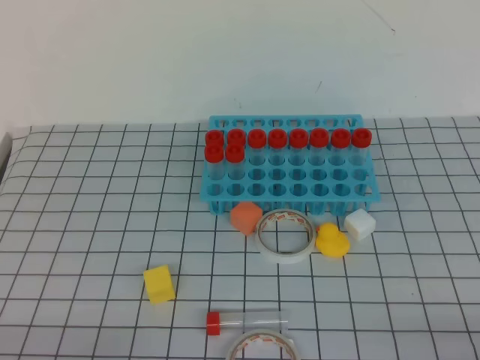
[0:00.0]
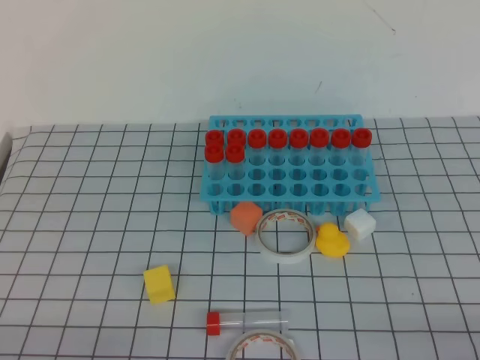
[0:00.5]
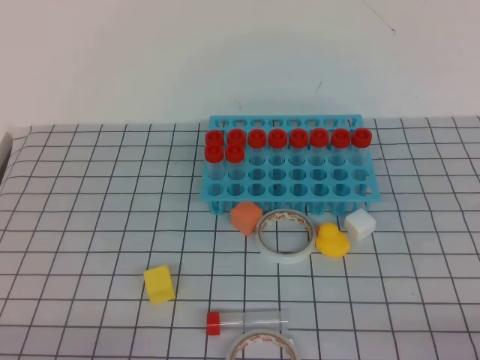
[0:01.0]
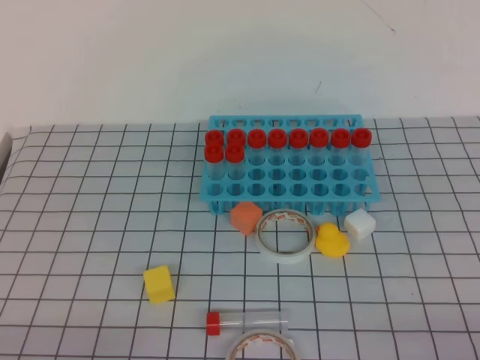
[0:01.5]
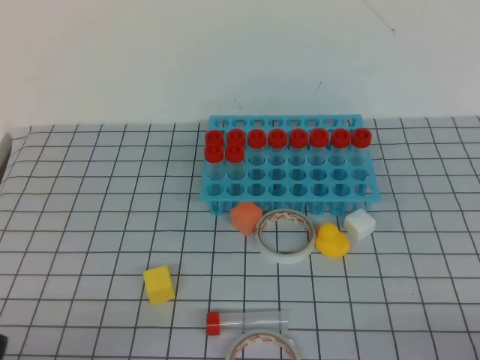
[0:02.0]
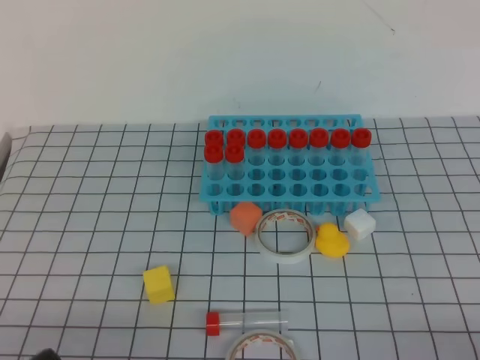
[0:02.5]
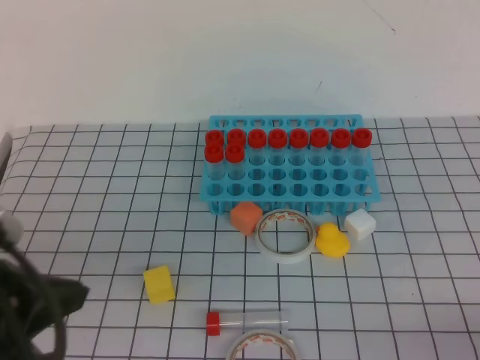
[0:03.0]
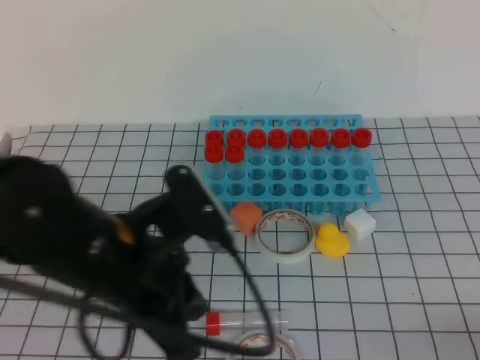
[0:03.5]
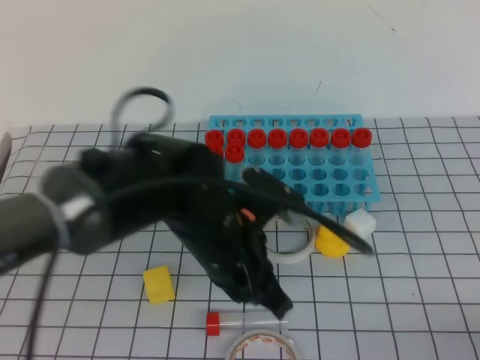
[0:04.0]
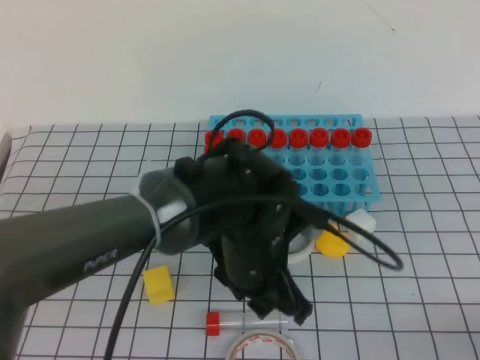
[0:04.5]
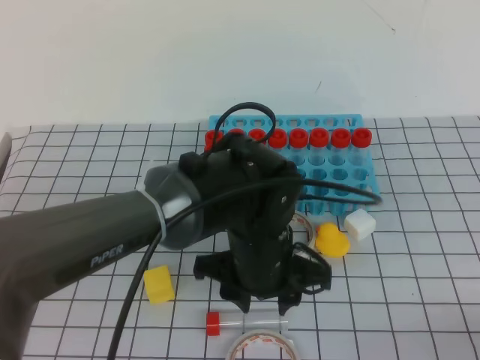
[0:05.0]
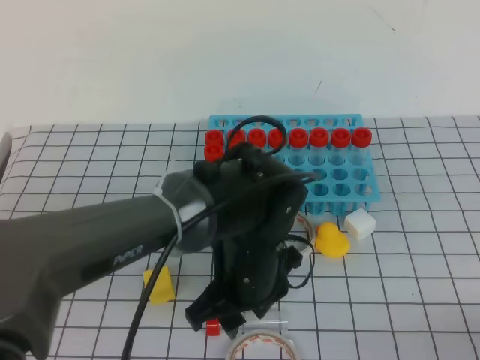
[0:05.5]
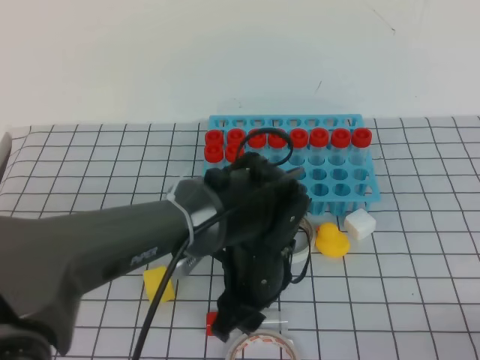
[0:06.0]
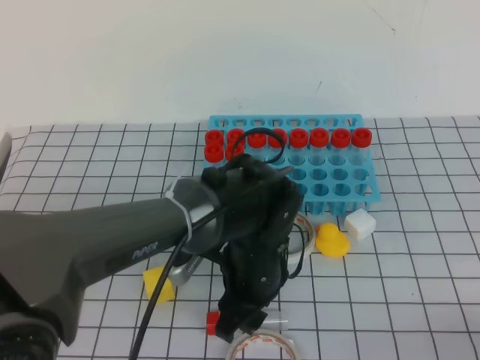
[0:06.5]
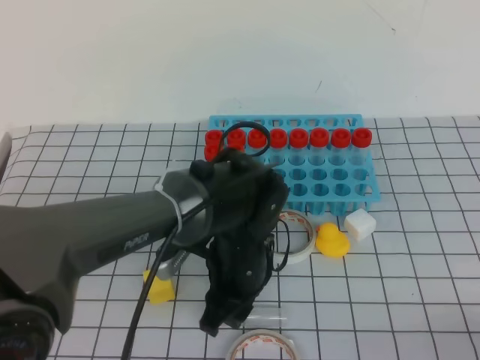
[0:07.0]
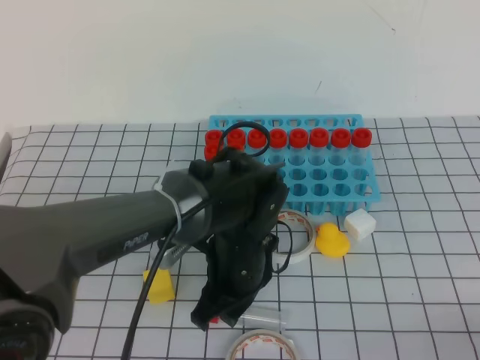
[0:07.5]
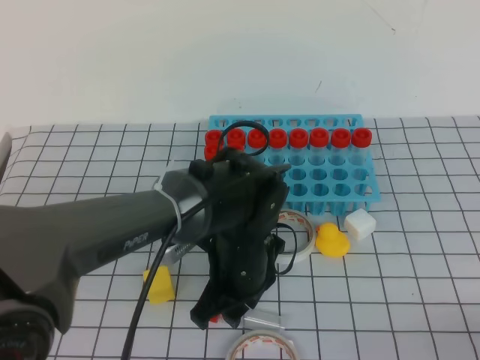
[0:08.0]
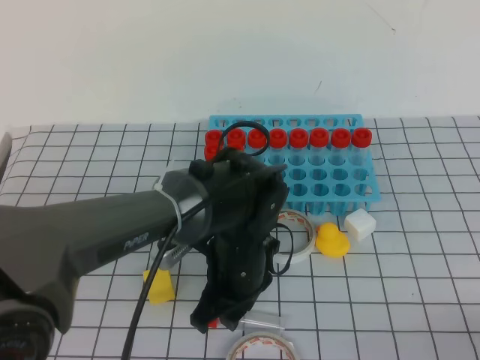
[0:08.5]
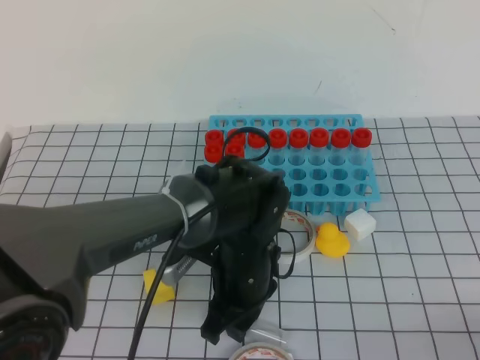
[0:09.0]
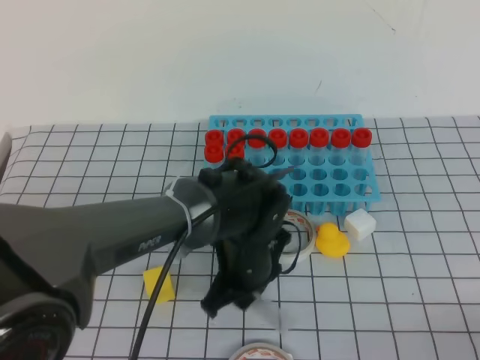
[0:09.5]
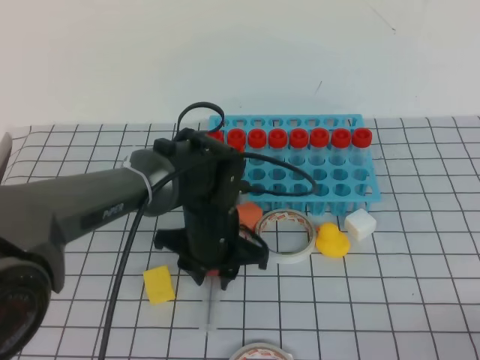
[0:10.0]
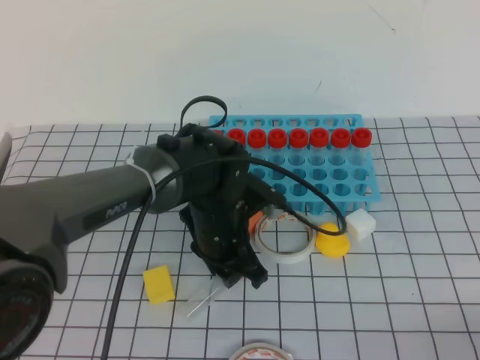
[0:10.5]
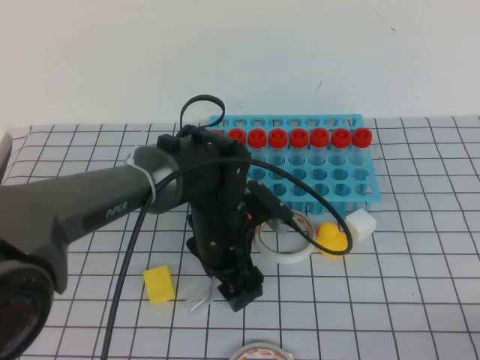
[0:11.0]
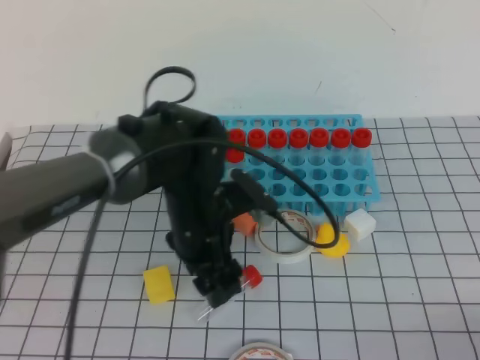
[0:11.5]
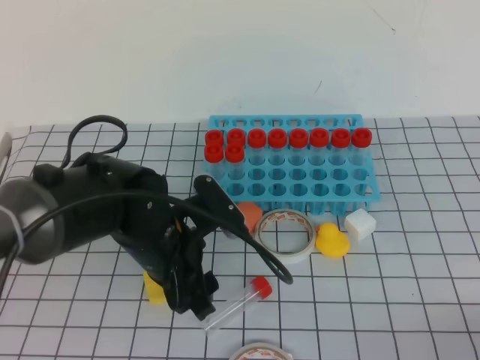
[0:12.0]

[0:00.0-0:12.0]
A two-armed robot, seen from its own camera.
0:02.0 to 0:04.0: The left gripper shifts roughly 30 cm to the right and forward.
0:04.0 to 0:06.0: The left gripper is displaced downward by roughly 5 cm, and opens.
0:06.0 to 0:08.0: There are only small adjustments of the grippers.
0:08.0 to 0:10.0: The left gripper shifts by about 5 cm.
0:10.0 to 0:12.0: The left gripper heads to the left and backward, covering approximately 10 cm, and opens its fingers.

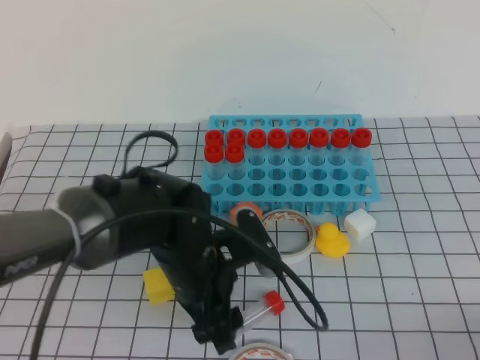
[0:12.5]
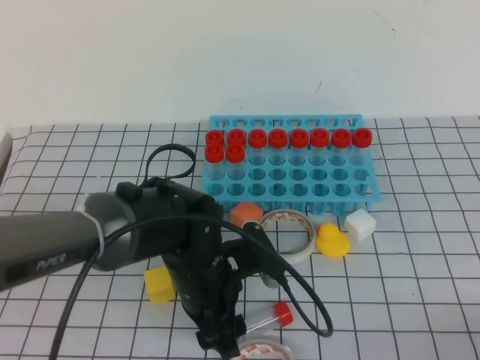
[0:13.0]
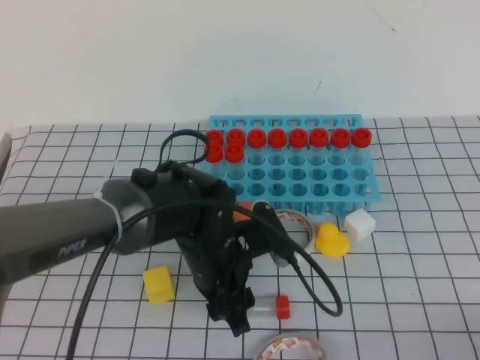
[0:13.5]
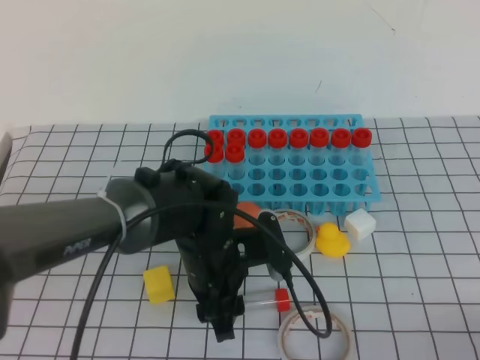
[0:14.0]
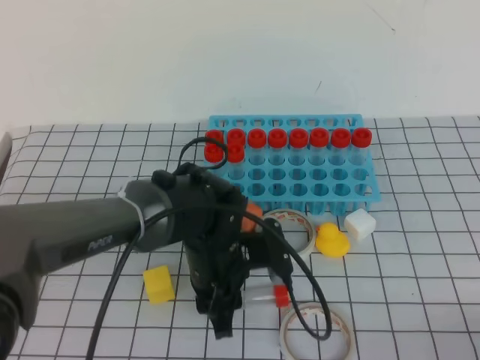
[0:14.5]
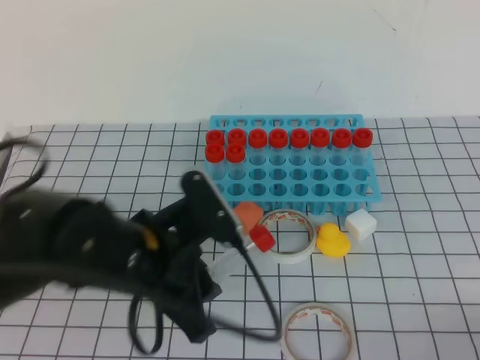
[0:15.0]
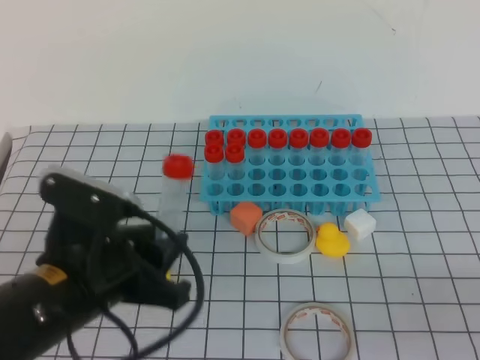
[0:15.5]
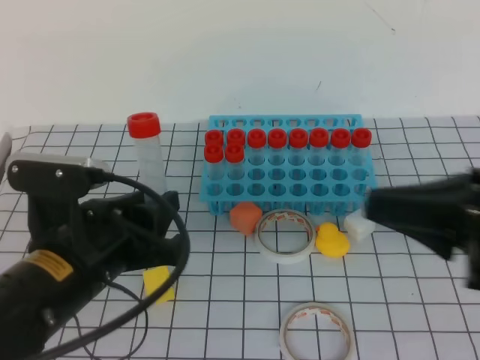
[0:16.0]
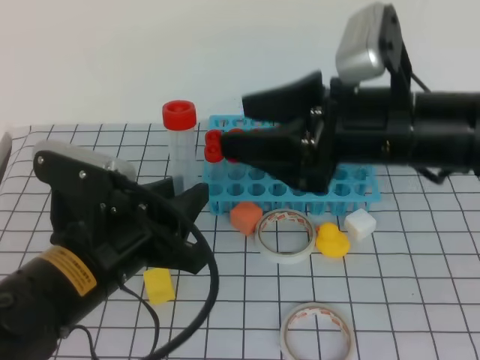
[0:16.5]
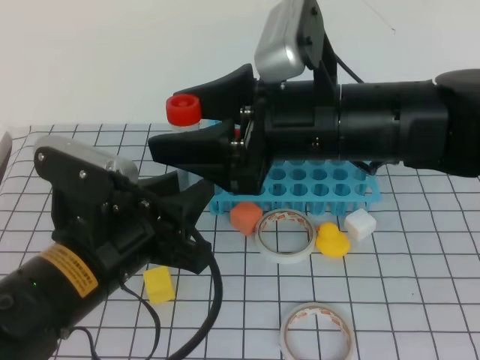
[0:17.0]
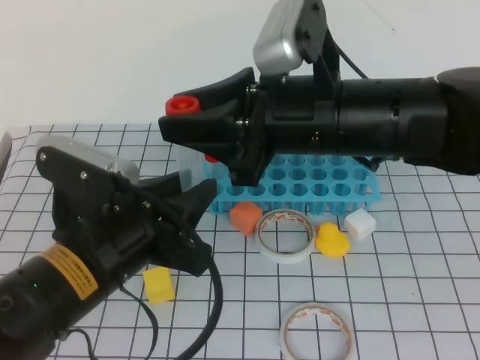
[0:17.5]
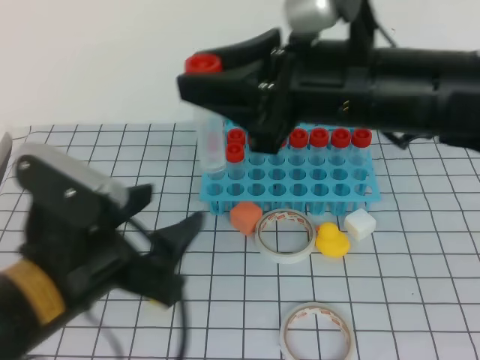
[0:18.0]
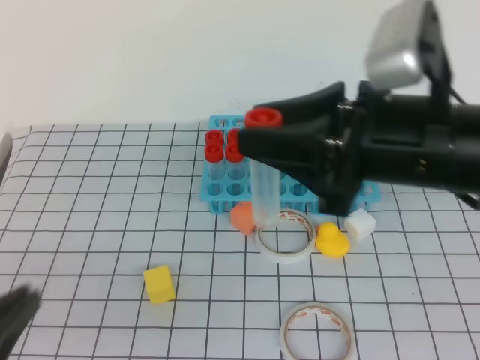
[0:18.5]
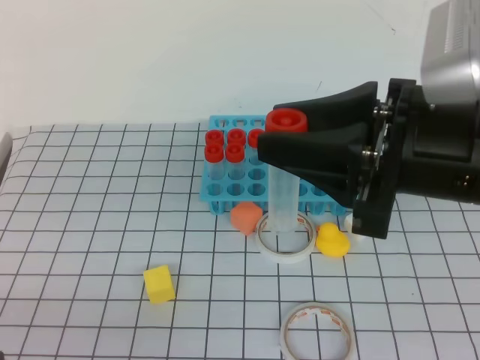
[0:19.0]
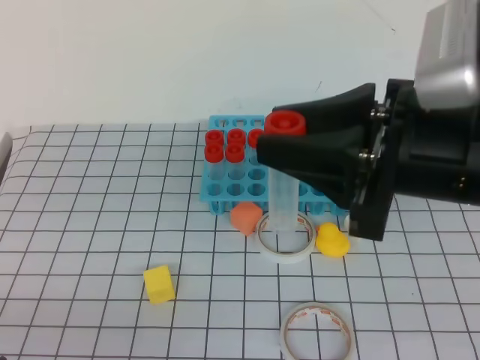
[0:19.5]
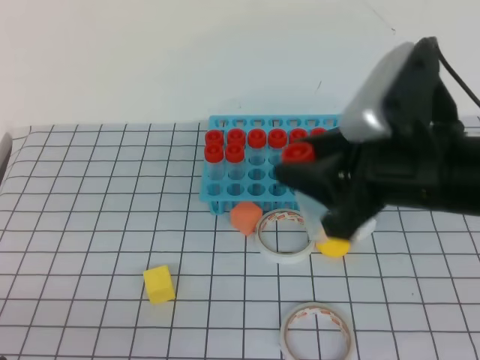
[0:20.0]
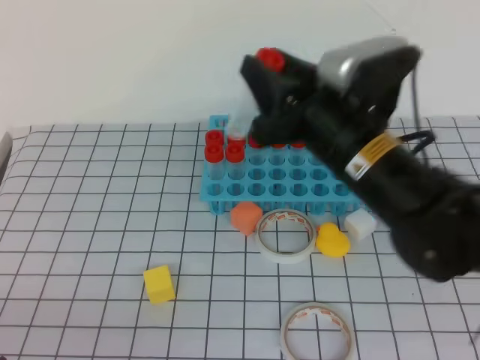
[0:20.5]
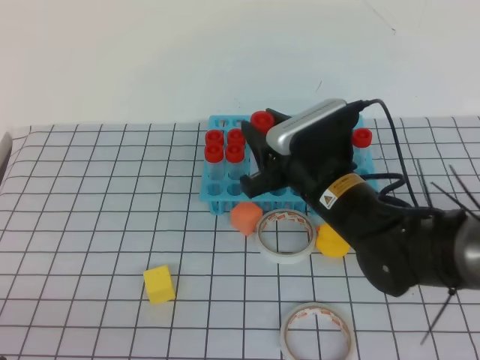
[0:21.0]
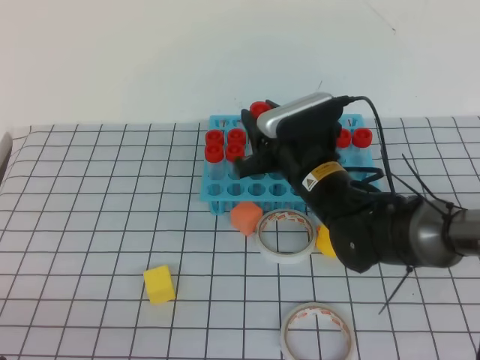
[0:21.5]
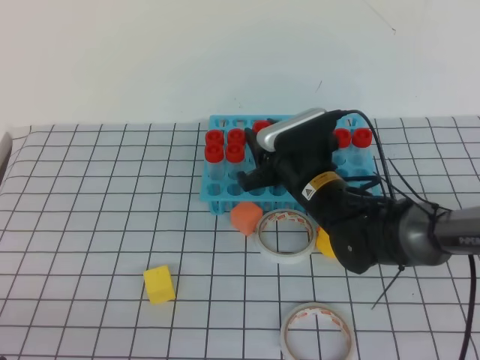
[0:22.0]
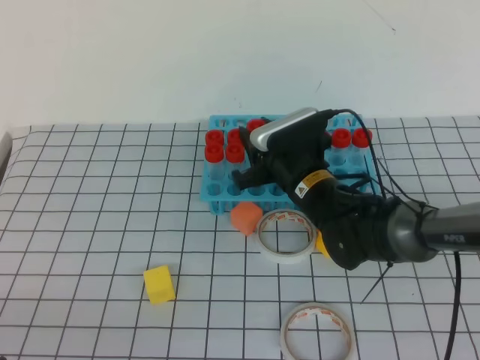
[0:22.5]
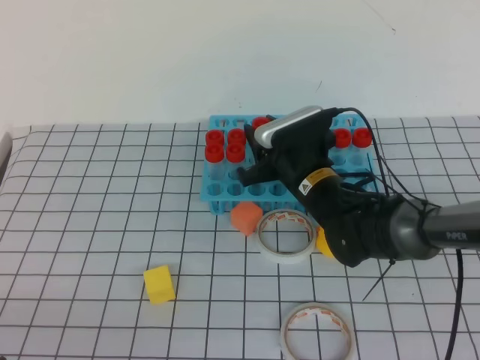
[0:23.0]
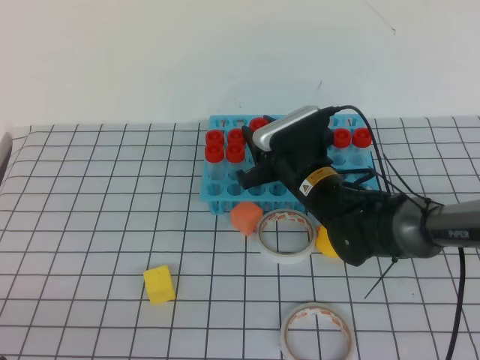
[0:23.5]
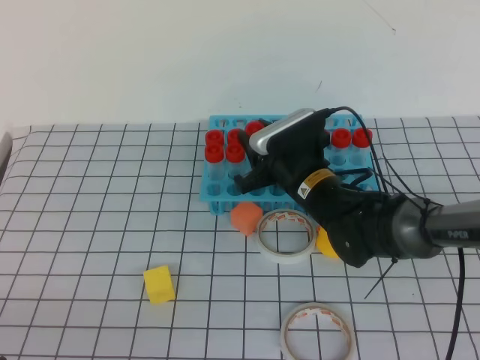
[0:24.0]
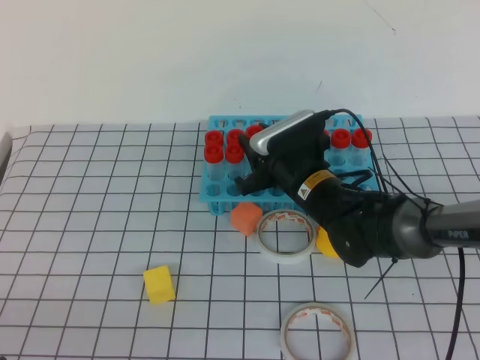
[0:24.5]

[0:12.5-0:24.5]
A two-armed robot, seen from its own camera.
0:12.5 to 0:14.5: The left gripper closes.
0:14.5 to 0:16.5: The right gripper heads forward, to the left and upward, covering some 30 cm, and opens. Meanwhile the left gripper shifts roughly 20 cm upward, backward and to the left.
0:16.5 to 0:18.5: The right gripper closes its fingers; the left gripper shifts roughly 15 cm backward and to the left, and closes.
0:18.5 to 0:20.5: The right gripper shifts roughly 10 cm downward and forward, while the left gripper shifts by about 5 cm.
0:20.5 to 0:22.5: The right gripper goes some 15 cm downward and forward.
0:22.5 to 0:24.5: The grippers move only a little.

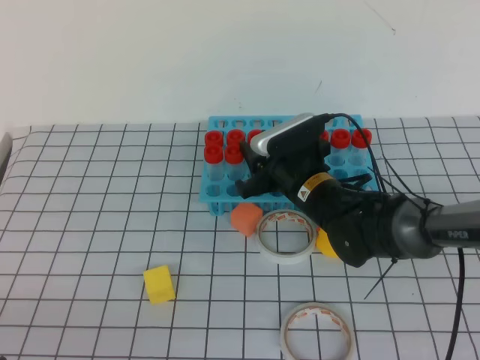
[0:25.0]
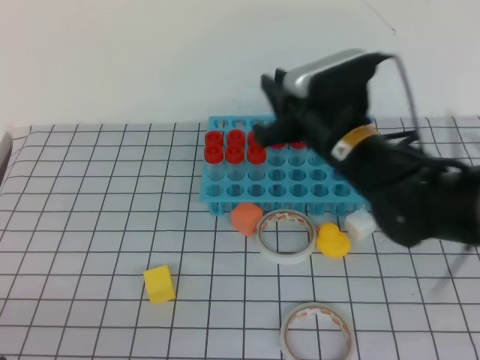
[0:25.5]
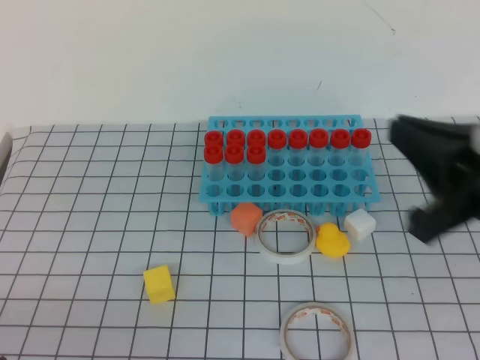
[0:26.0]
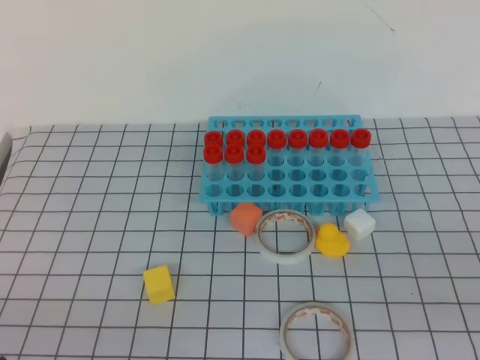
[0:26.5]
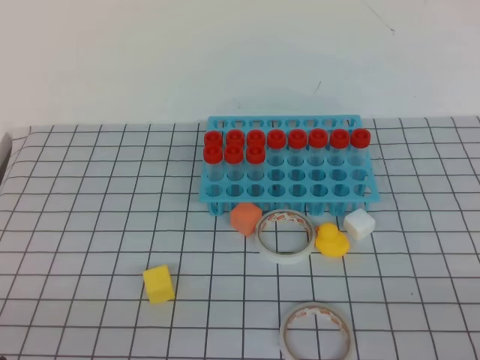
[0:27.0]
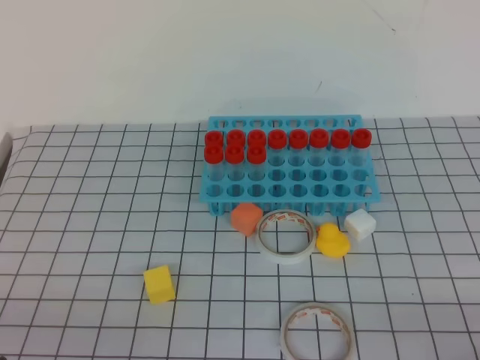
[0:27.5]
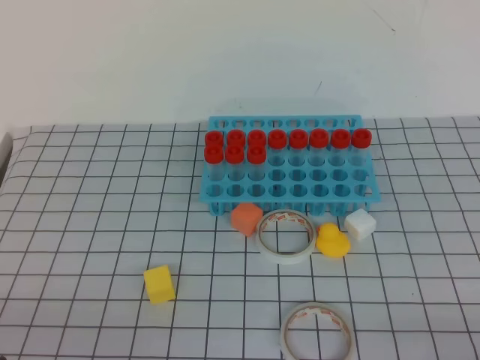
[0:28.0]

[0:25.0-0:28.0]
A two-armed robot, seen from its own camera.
0:25.0 to 0:26.5: The right gripper goes some 40 cm backward, to the right and upward, and closes its fingers.
